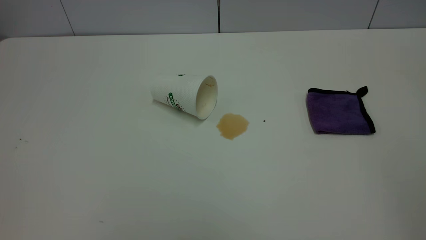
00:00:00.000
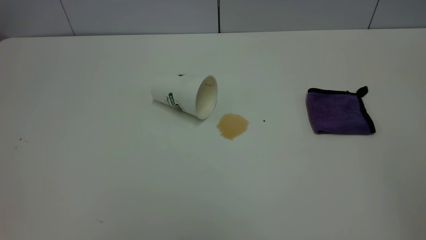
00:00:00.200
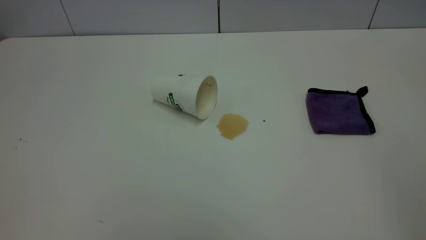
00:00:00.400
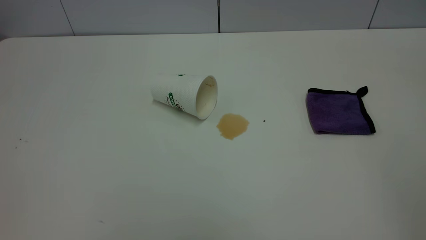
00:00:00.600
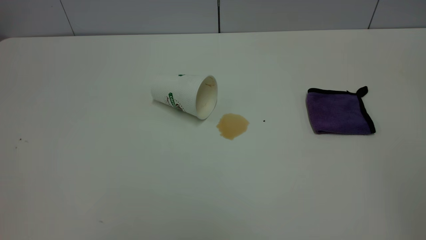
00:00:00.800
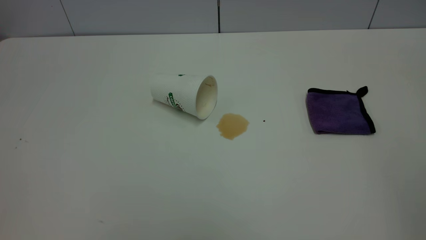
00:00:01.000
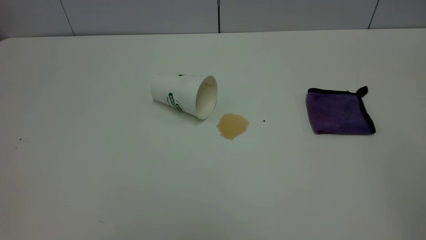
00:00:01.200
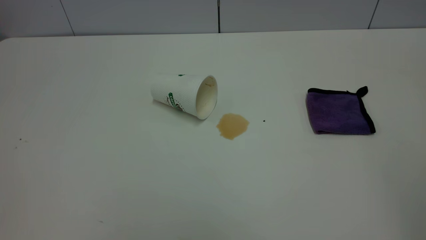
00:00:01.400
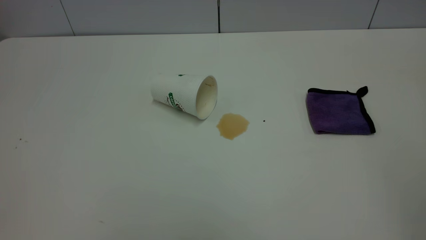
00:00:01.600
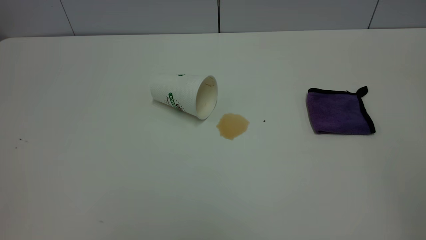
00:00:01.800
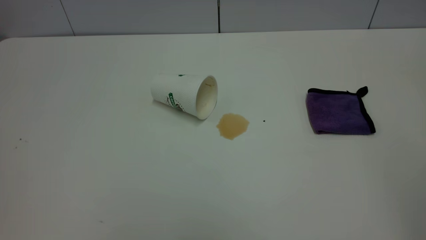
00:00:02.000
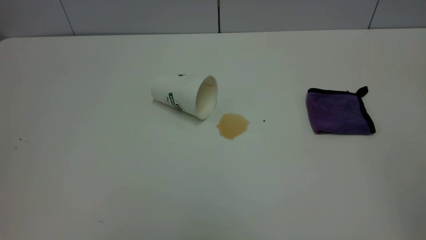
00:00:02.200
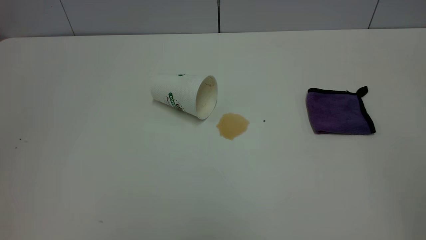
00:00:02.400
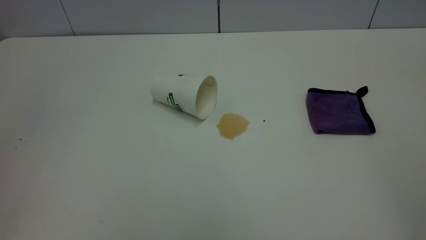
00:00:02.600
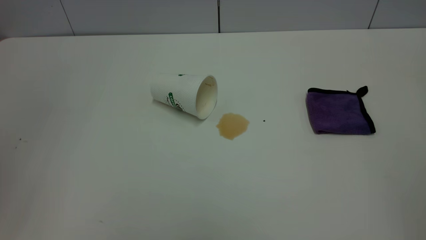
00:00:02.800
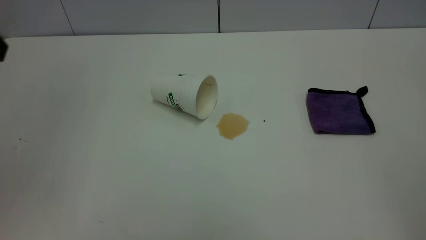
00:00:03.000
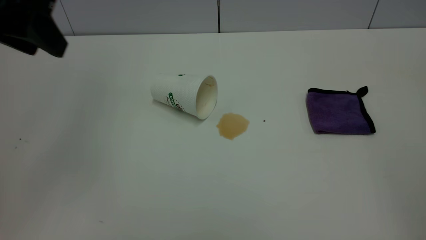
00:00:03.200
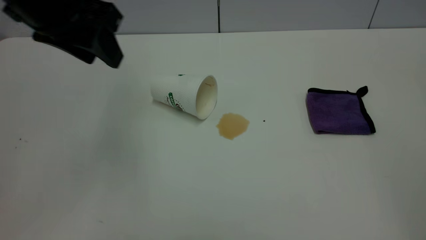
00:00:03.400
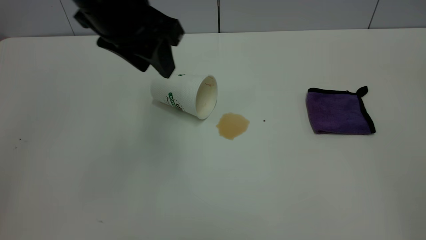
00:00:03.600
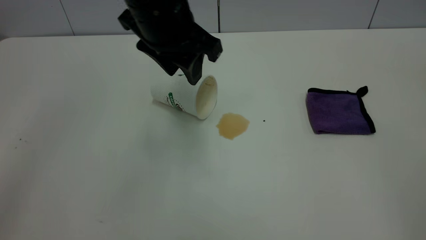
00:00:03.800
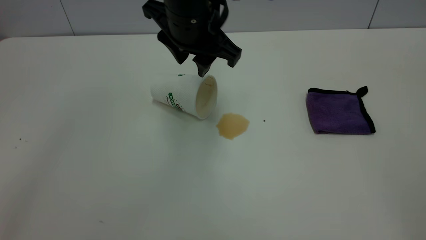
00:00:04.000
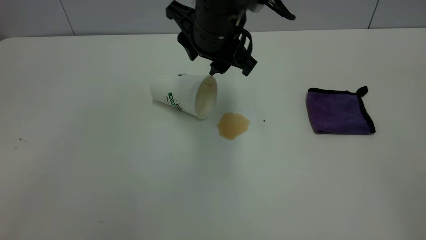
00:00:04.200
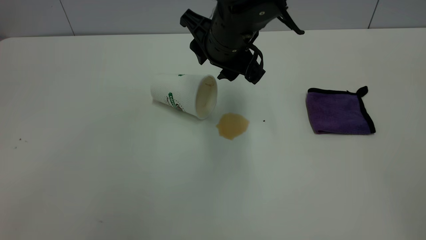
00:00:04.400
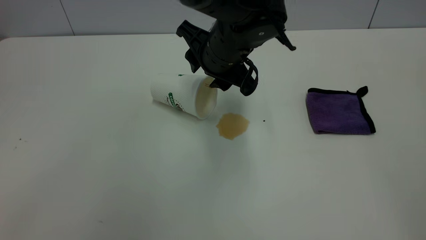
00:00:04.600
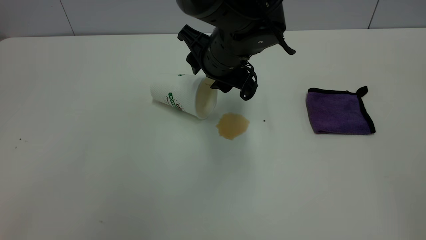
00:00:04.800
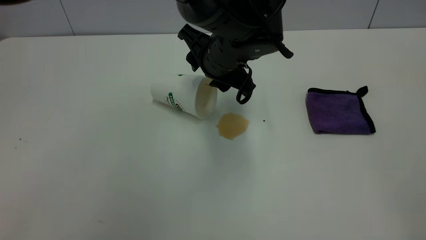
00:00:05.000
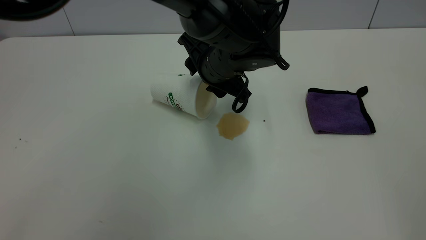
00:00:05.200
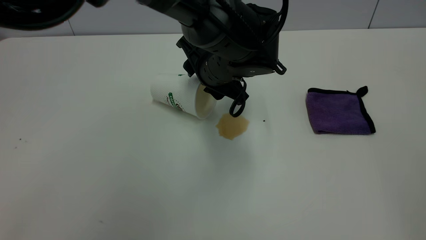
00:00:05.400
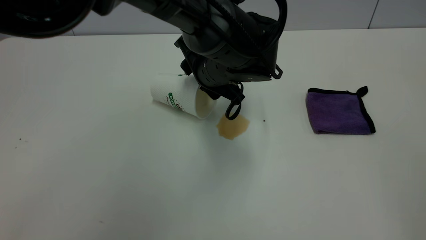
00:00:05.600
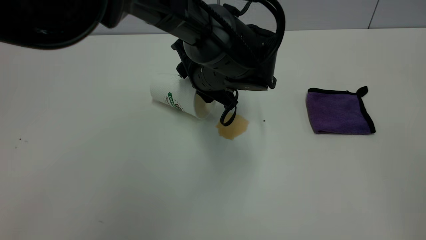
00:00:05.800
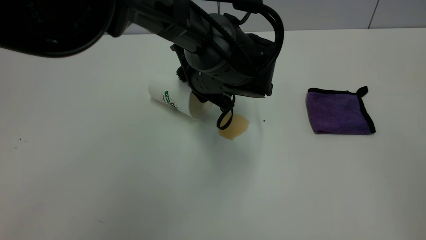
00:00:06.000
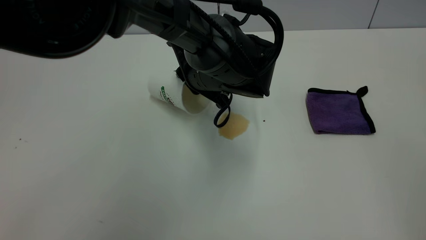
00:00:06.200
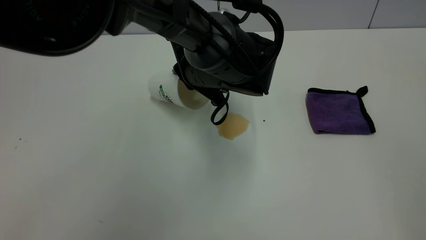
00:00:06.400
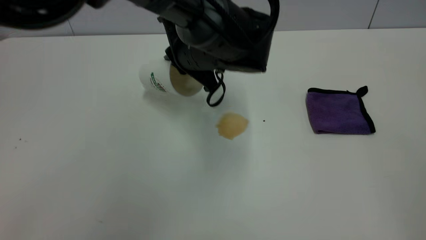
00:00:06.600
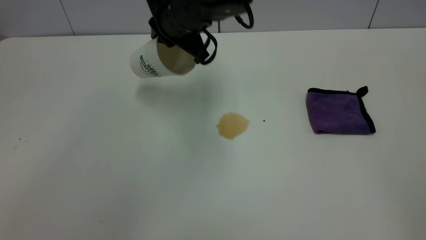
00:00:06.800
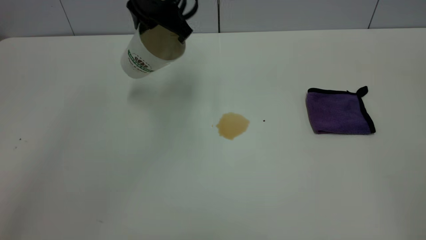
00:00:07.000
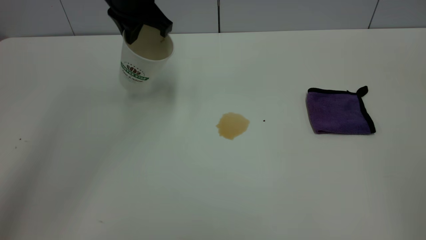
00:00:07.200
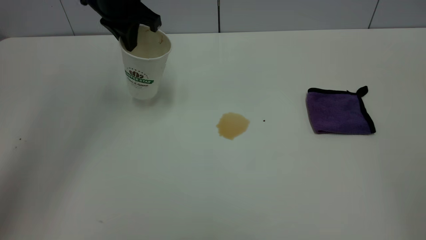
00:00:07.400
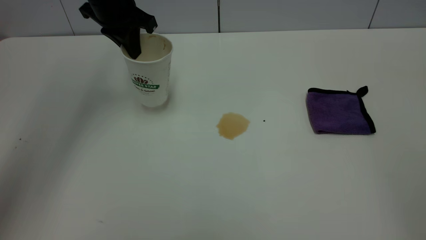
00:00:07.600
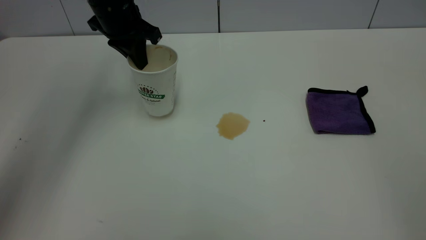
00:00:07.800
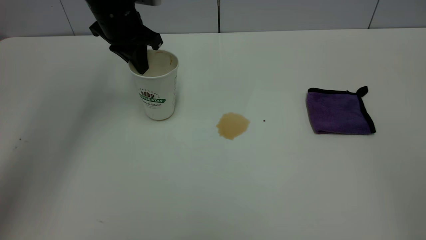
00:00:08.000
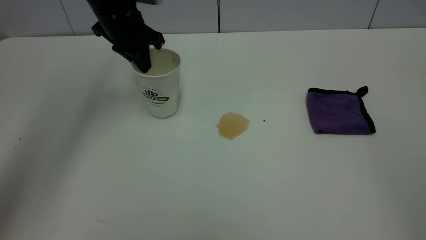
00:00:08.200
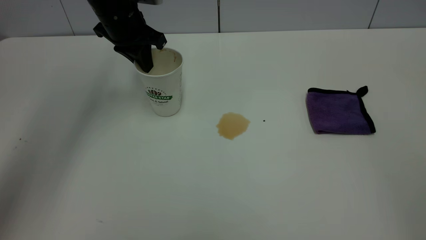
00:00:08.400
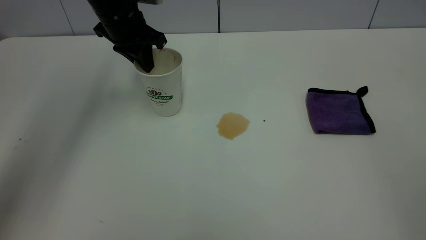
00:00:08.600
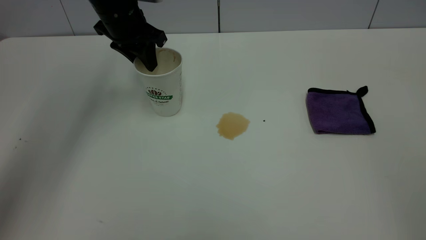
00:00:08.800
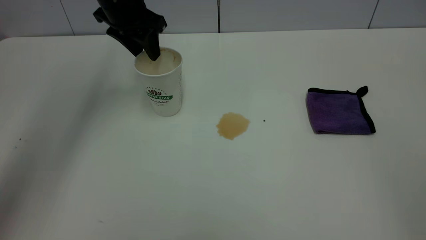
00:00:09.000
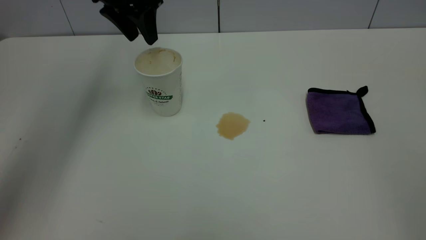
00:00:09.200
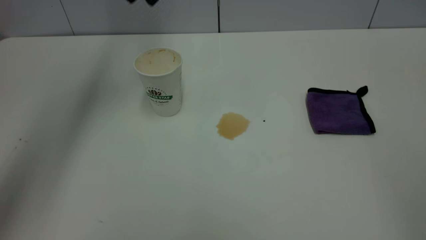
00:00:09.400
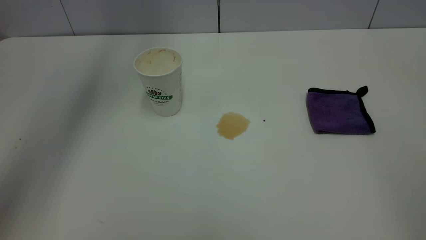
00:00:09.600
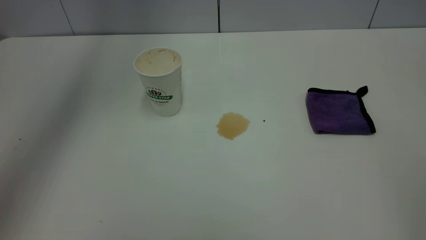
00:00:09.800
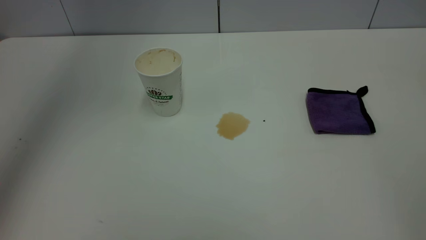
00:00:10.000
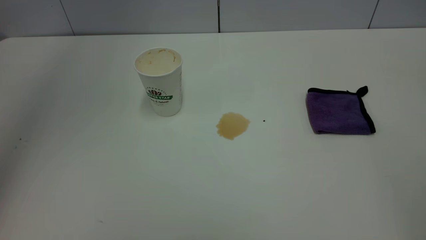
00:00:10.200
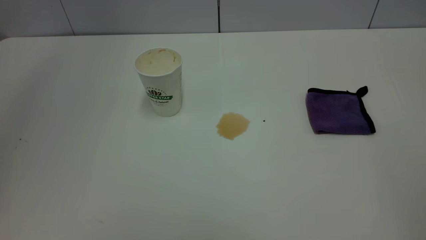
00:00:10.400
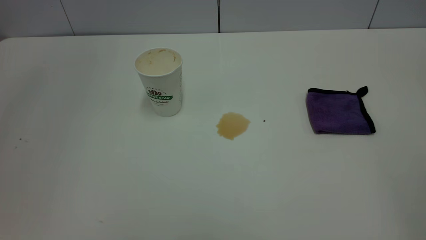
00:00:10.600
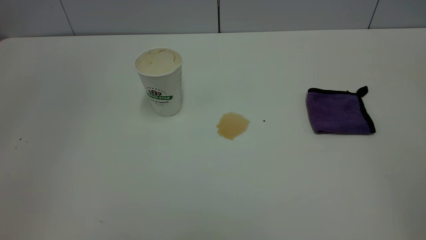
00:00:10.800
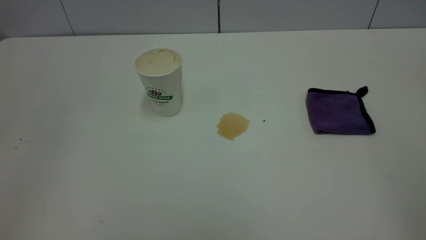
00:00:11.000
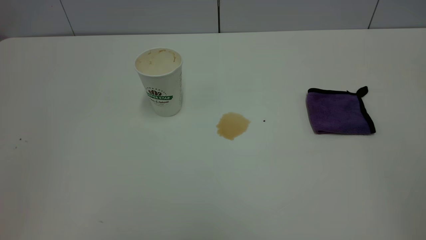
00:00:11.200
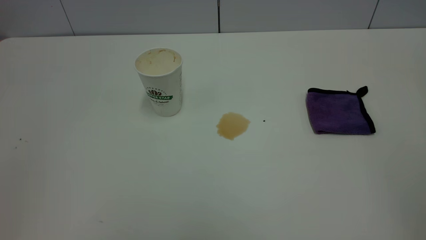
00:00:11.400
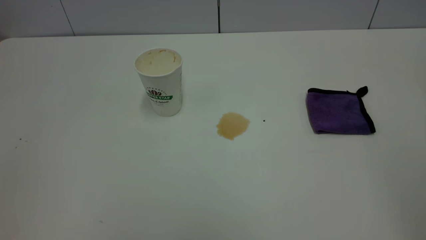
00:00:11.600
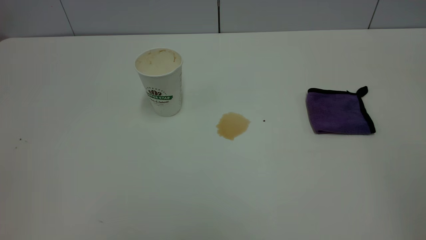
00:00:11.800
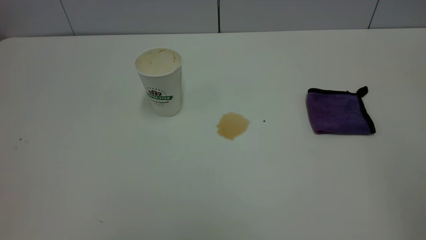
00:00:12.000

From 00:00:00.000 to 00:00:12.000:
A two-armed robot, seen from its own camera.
Task of the whole recording: the left gripper pick up the fallen cup and place it upright, the right gripper grasp the purple rag and wipe the tea stain on the table, the right gripper put the purple rag back in its original position.
Step, from 00:00:00.000 to 00:00:09.200: Stand the paper cup upright.
From 00:00:00.000 to 00:00:01.600: Both grippers stay put.
From 00:00:03.000 to 00:00:04.400: The left gripper shifts some 35 cm to the right, downward and forward.
From 00:00:04.400 to 00:00:06.000: The left gripper shifts about 10 cm downward, and closes up.
From 00:00:06.000 to 00:00:07.600: The left gripper travels to the left, upward and forward by approximately 25 cm, and closes.
From 00:00:07.600 to 00:00:09.000: The left gripper opens up.
From 00:00:09.000 to 00:00:10.400: The left gripper moves upward and backward, roughly 40 cm.

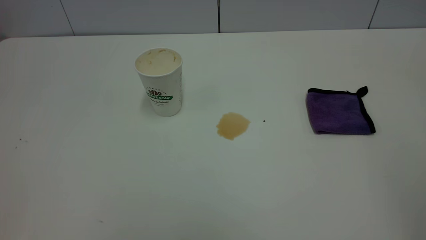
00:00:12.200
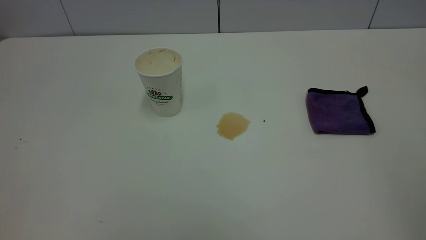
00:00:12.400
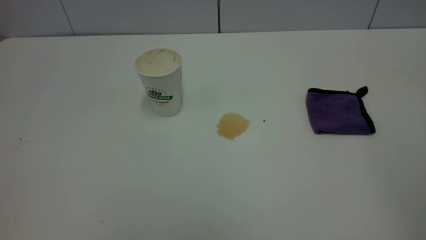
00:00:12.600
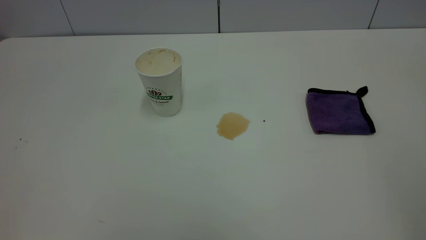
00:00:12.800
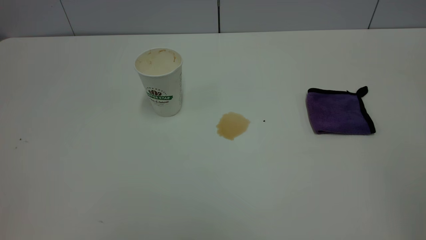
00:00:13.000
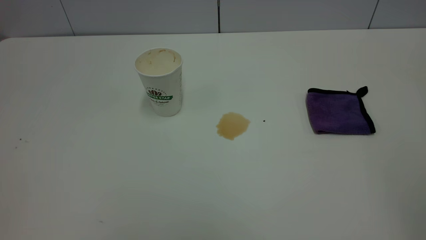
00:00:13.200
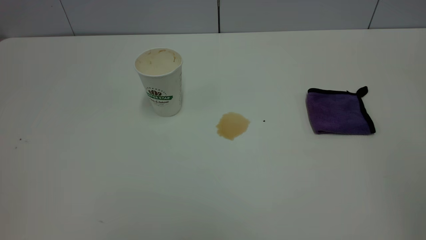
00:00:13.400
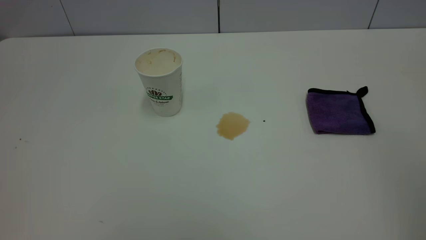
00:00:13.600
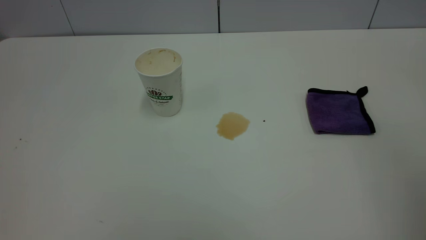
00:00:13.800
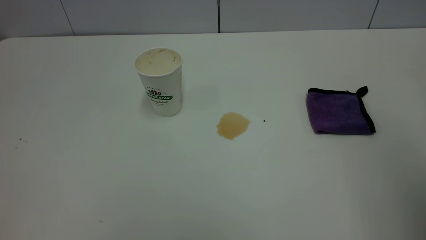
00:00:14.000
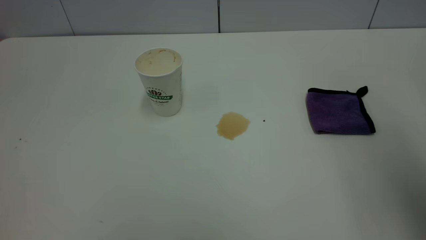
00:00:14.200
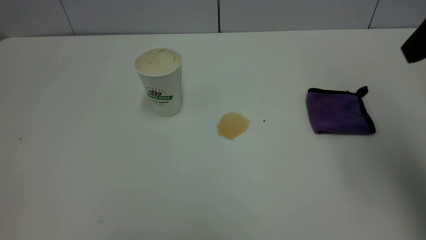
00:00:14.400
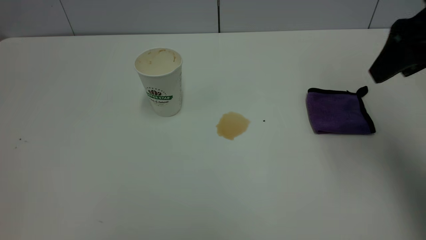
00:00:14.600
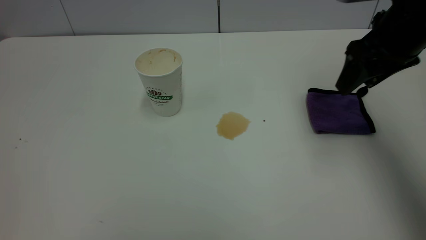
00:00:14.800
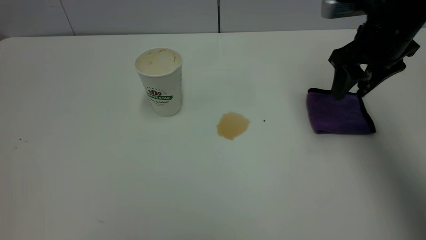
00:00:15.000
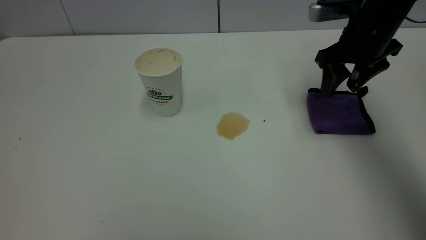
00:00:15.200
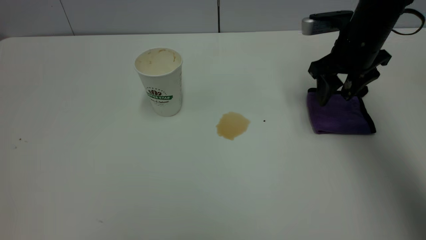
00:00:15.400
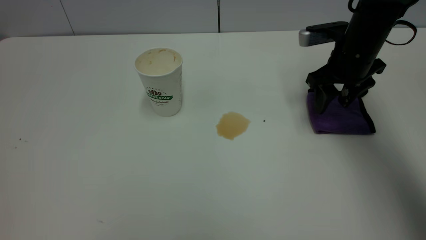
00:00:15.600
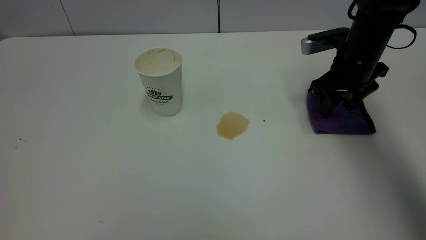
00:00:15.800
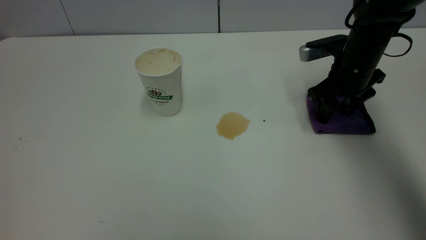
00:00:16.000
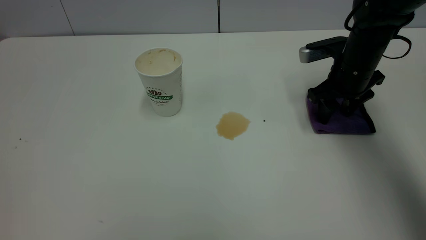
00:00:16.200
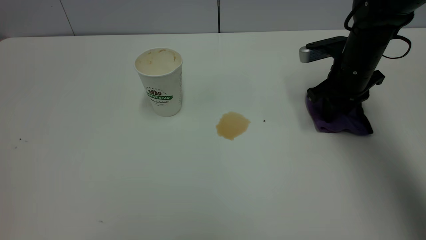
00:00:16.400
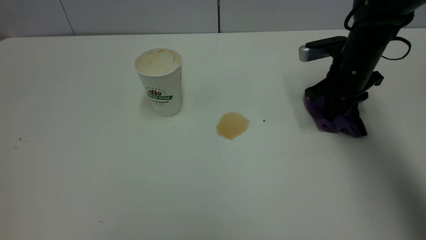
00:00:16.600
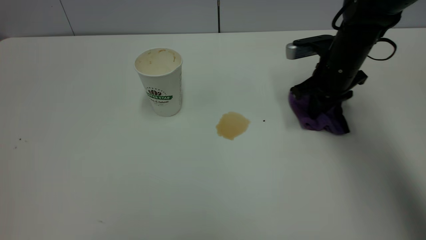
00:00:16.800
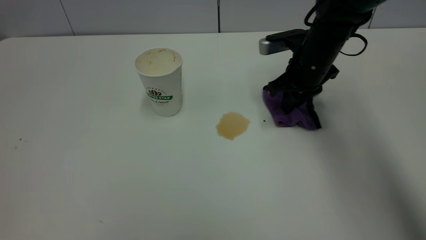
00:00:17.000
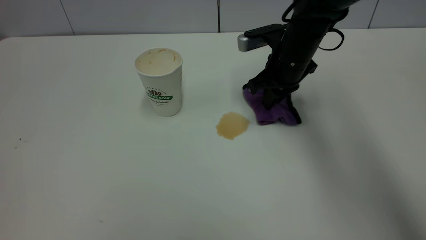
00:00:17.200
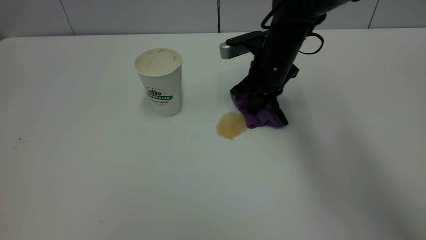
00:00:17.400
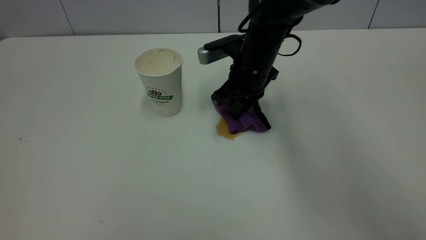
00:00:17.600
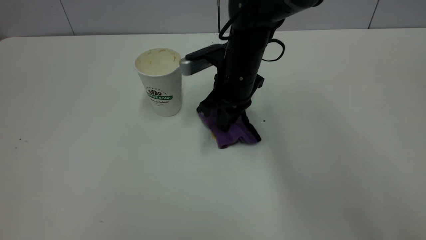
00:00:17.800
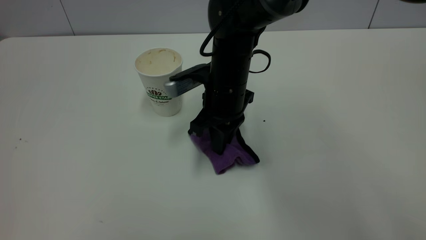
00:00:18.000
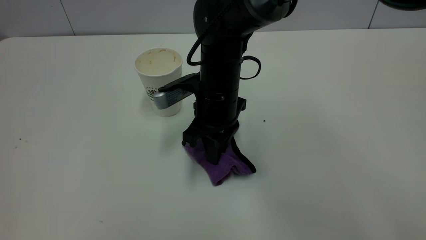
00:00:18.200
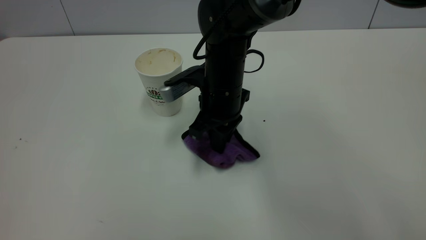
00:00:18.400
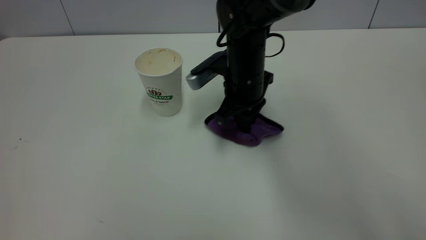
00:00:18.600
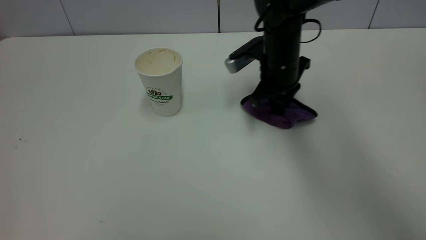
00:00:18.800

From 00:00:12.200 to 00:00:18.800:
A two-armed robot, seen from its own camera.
Task of the whole recording: the left gripper pick up the fallen cup and place it upright, the right gripper grasp the purple rag and wipe the tea stain on the table, the right gripper put the purple rag back in its original position.
From 00:00:13.800 to 00:00:15.400: The right gripper goes some 40 cm forward and downward.
From 00:00:15.400 to 00:00:17.200: The right gripper moves to the left, about 10 cm, and closes.
From 00:00:17.200 to 00:00:18.800: The right gripper goes to the left and returns, approximately 10 cm each way.
